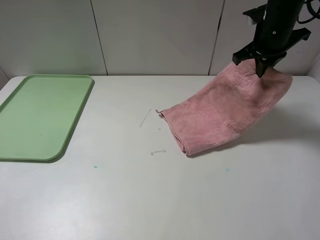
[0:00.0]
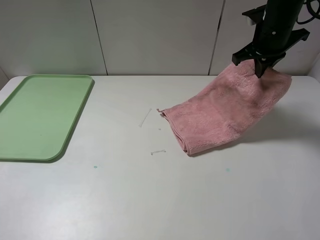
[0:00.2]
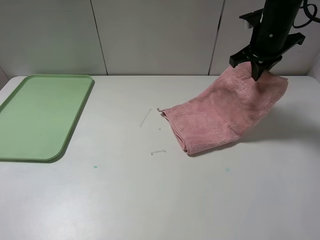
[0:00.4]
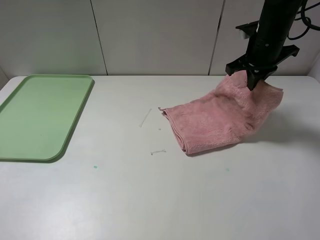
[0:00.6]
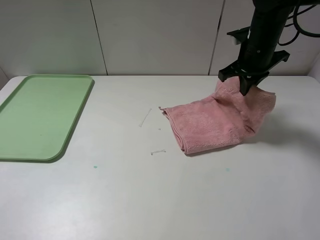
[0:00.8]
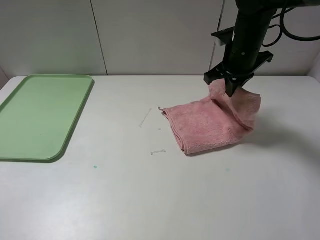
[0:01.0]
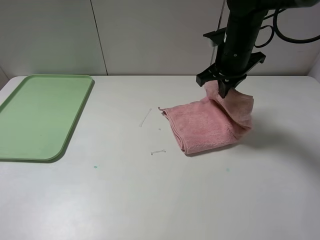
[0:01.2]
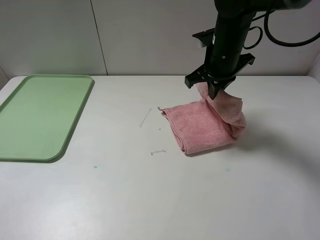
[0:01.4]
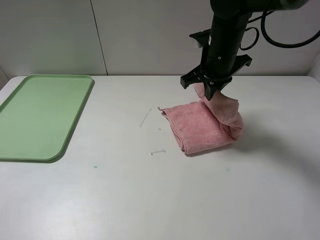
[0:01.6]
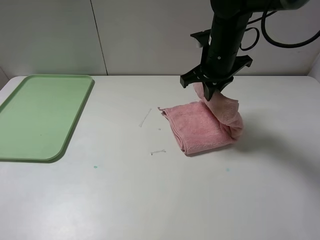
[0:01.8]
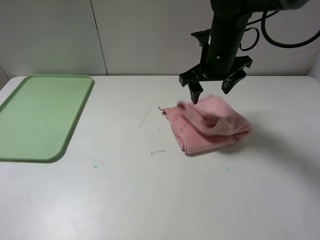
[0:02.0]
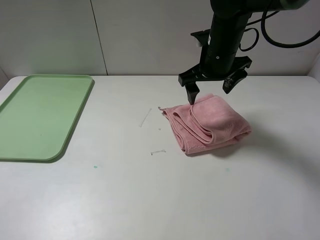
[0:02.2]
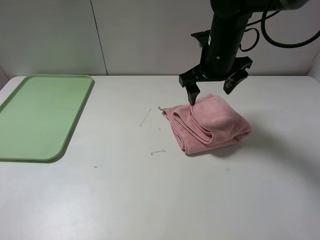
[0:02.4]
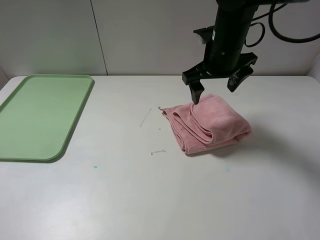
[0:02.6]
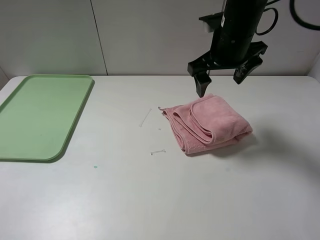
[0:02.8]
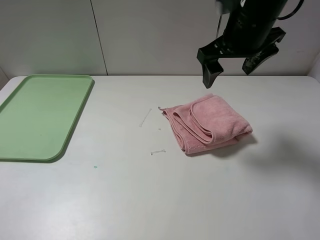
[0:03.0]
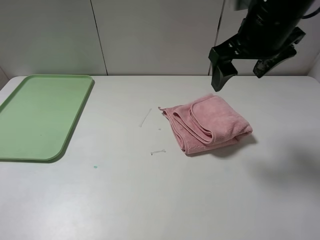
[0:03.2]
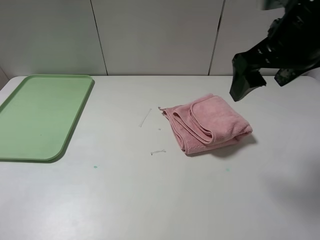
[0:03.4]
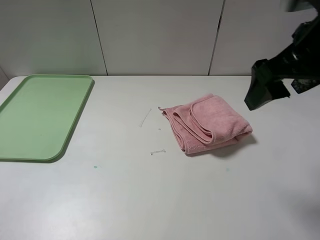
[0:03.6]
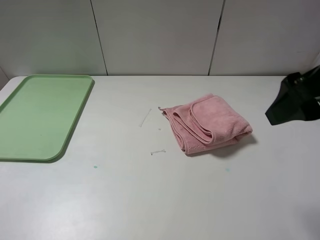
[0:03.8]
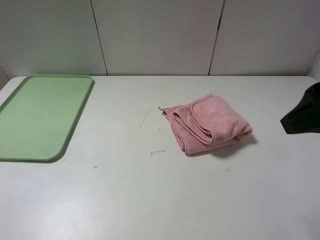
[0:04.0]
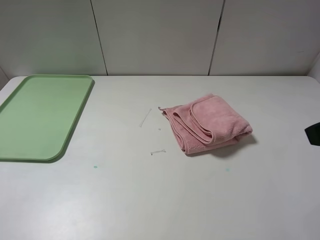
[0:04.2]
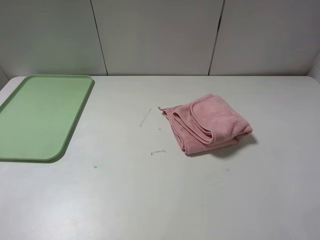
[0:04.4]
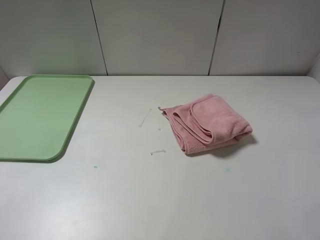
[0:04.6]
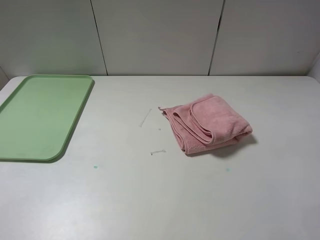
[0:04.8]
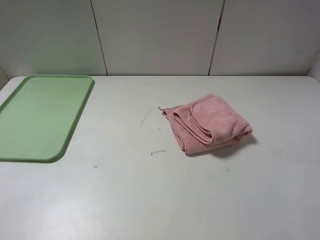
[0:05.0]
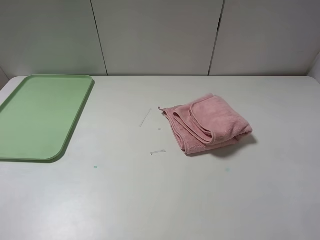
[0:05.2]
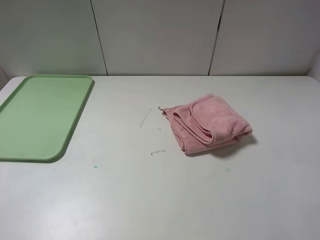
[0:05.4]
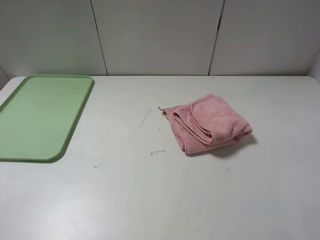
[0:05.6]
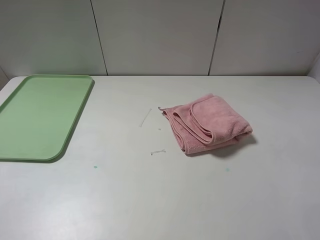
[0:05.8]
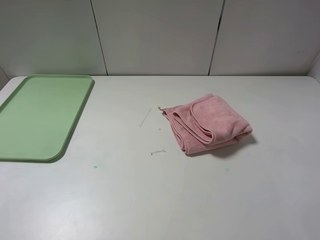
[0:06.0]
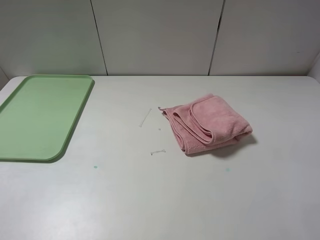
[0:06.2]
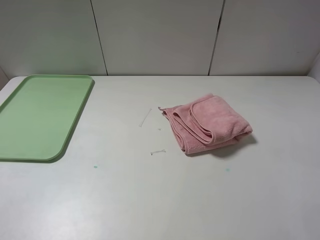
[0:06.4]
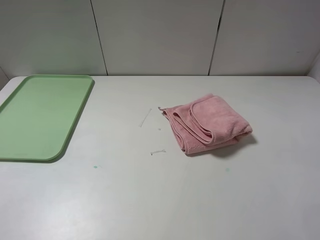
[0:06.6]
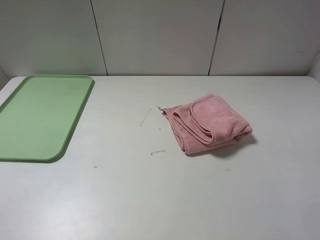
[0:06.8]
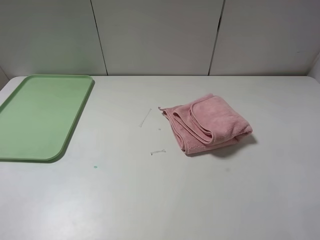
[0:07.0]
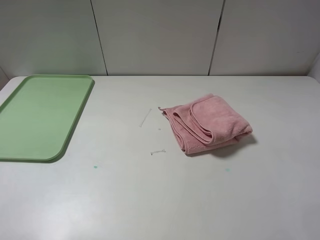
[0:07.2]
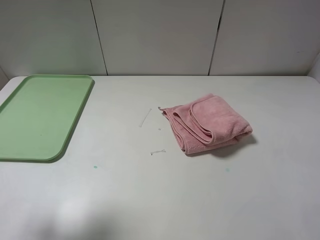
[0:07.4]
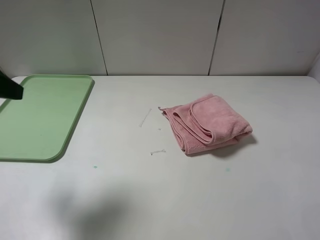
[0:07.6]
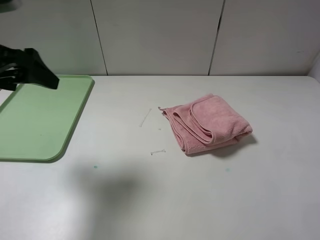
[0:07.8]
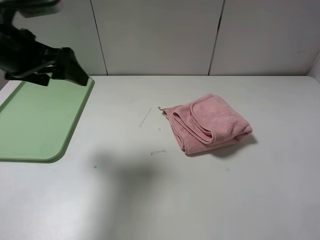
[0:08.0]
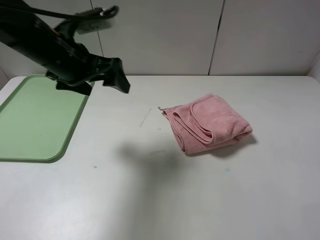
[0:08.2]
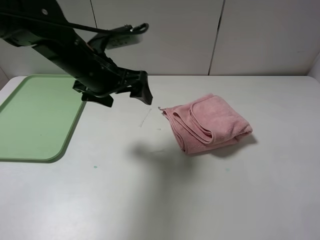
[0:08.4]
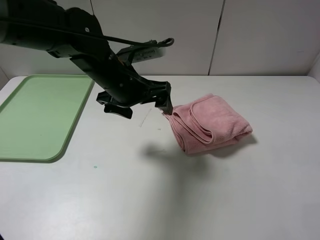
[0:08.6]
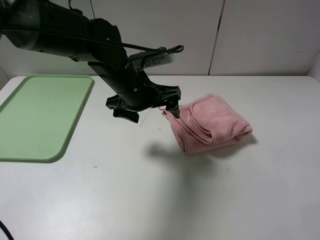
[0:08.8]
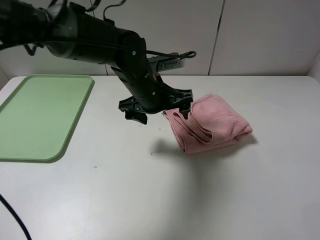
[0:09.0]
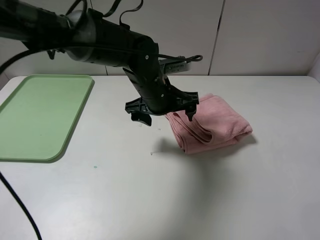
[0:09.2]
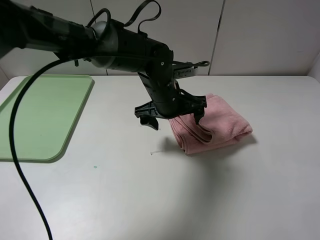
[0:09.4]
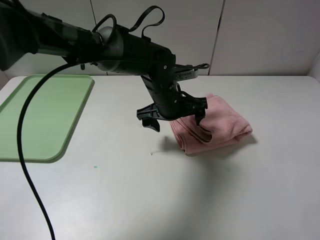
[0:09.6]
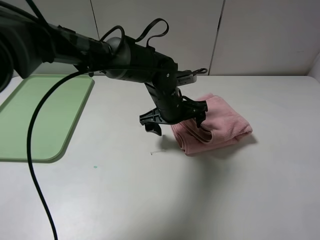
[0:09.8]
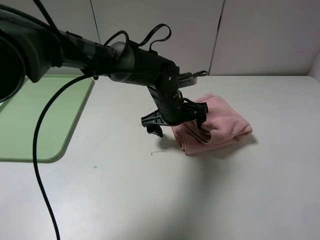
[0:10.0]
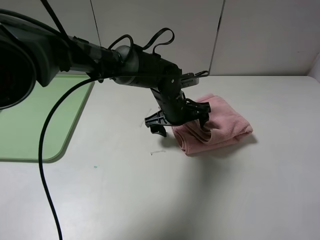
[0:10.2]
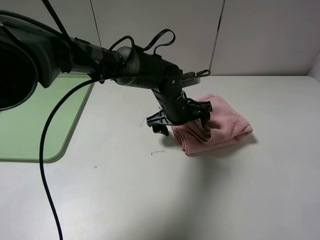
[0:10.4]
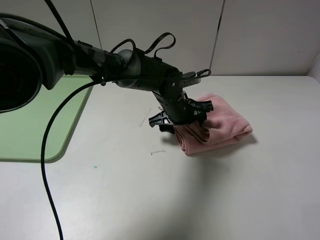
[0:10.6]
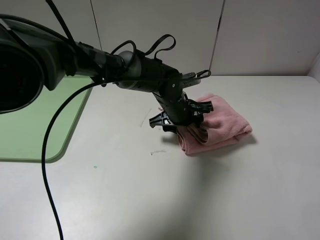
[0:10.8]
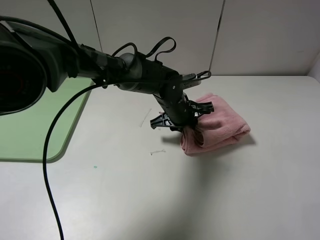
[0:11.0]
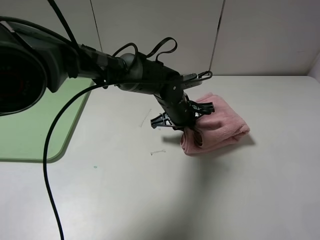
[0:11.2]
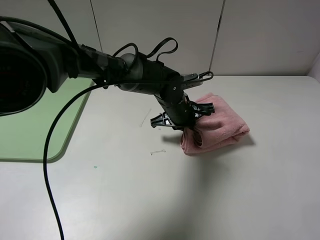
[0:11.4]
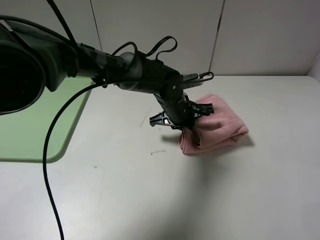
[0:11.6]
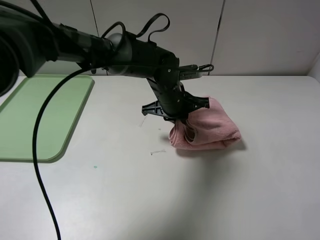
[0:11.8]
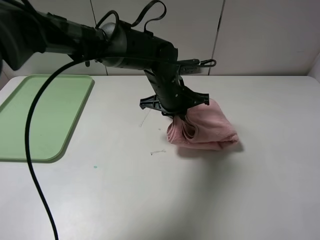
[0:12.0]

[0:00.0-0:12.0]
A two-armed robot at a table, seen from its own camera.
Step, 0:00.0 to 0:02.0: Fold the pink towel from right to left with right gripper.
0:00.0 to 0:01.6: The right gripper goes about 10 cm to the left.
0:01.6 to 0:03.0: The right gripper moves upward and backward, approximately 10 cm, and opens its fingers.
0:03.0 to 0:04.4: The right gripper travels backward and to the right by some 25 cm.
0:06.0 to 0:07.6: The left gripper heads forward, covering about 20 cm.
0:07.6 to 0:09.0: The left gripper heads to the right, downward and forward, covering some 35 cm.
0:09.0 to 0:10.4: The left gripper is displaced downward and to the right by approximately 10 cm.
0:10.4 to 0:12.0: The left gripper ends up approximately 5 cm from where it was, and closes up.

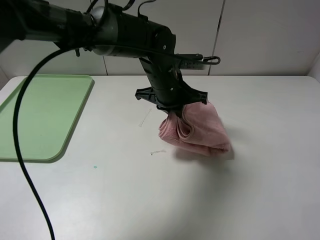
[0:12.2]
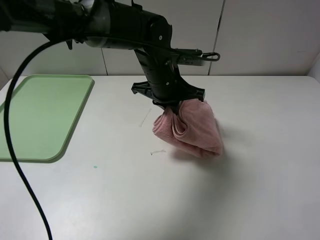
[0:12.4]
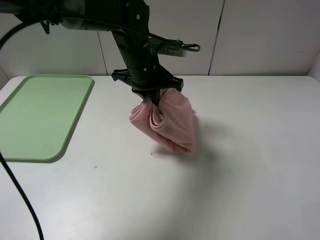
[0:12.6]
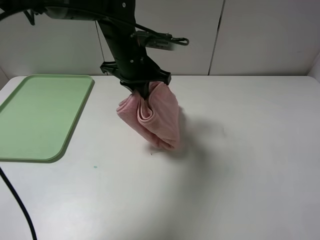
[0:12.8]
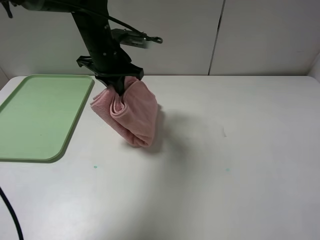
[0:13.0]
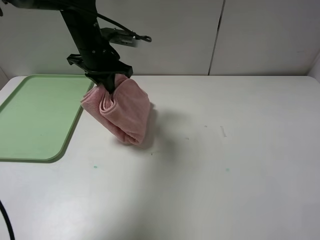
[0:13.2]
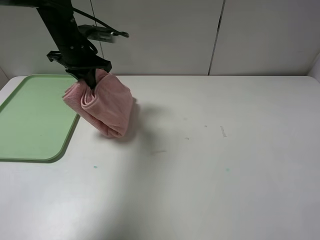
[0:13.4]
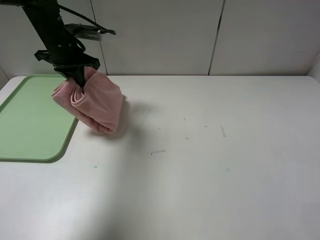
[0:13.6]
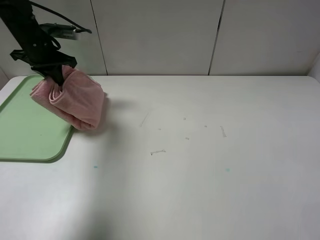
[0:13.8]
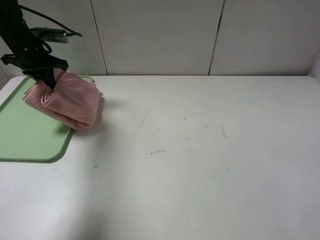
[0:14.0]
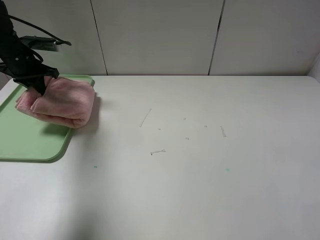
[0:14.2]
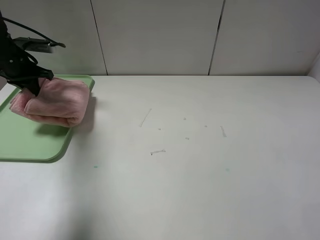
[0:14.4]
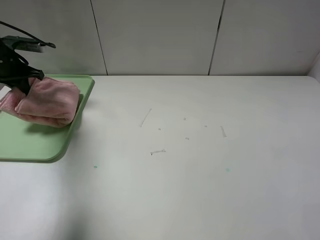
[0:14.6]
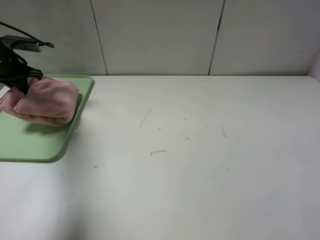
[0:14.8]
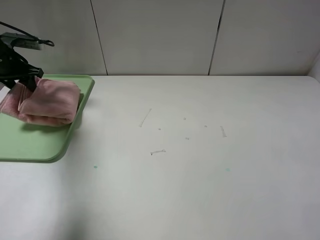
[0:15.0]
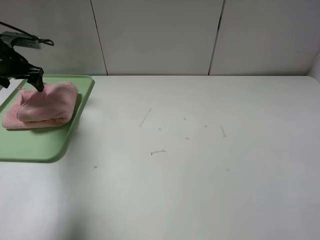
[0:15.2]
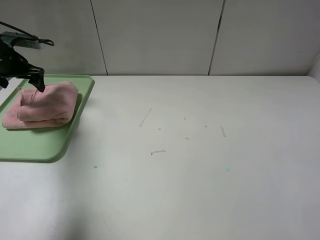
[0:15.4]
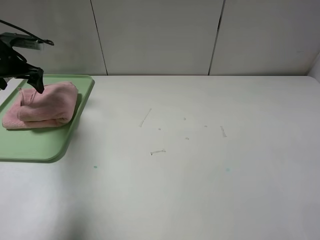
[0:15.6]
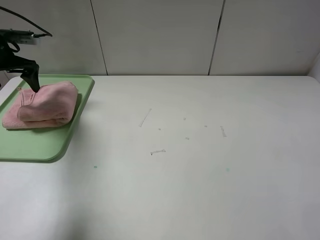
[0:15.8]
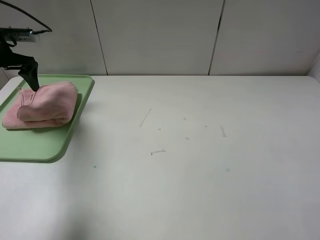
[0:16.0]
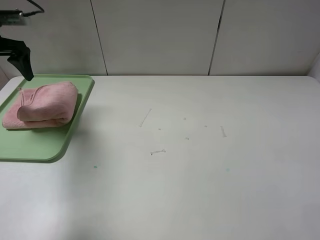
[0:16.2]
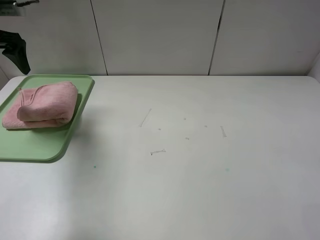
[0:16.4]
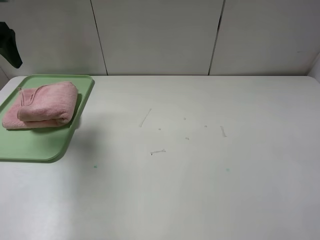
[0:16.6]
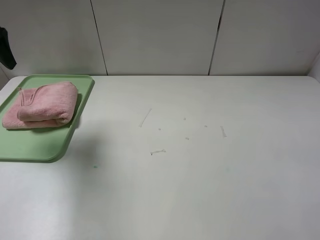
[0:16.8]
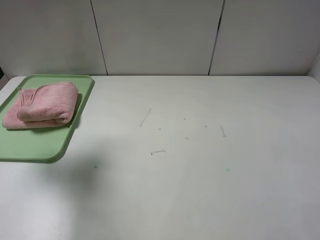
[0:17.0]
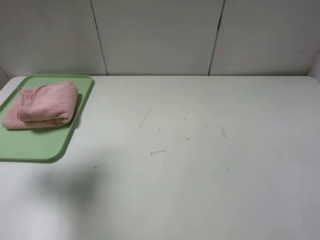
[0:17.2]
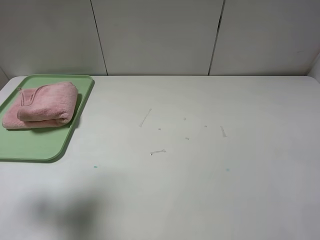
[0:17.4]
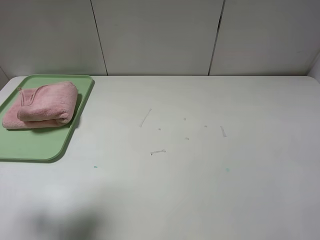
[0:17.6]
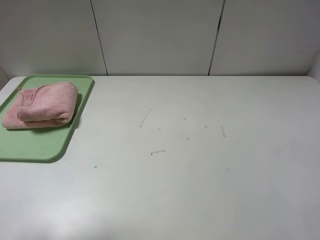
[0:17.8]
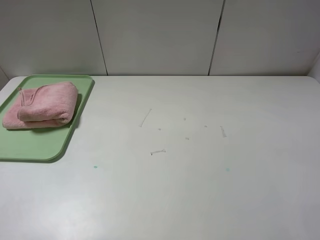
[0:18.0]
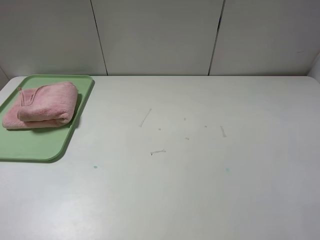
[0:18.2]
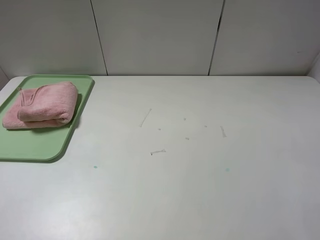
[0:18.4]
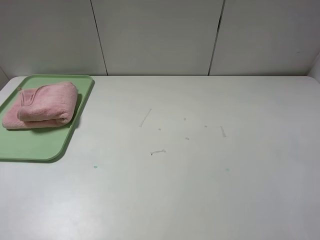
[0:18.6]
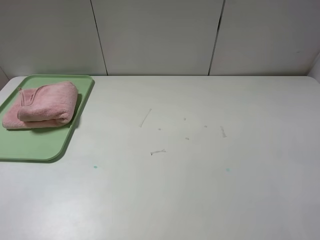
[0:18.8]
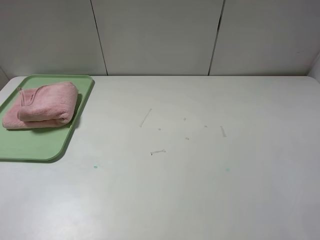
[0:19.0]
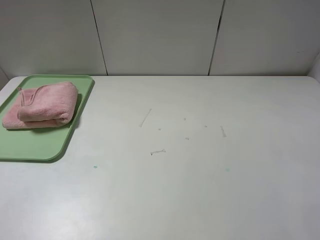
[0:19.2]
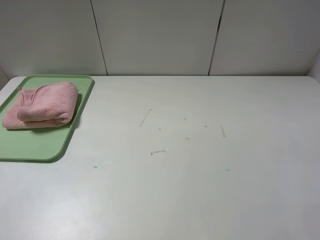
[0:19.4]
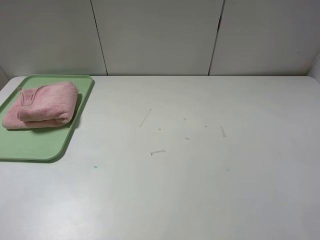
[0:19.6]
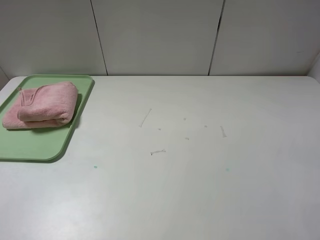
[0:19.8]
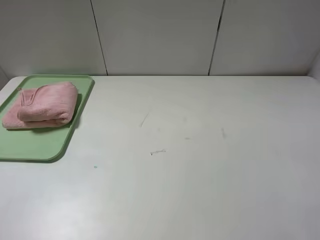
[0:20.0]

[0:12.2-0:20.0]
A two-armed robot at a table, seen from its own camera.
Step, 0:12.2 to 0:15.0: Place the folded pink towel on the tray with the left gripper.
0:12.2 to 0:13.8: The left gripper is displaced to the left by about 30 cm.
0:13.8 to 0:15.4: The left gripper shifts some 10 cm to the left, and opens up.
0:15.4 to 0:16.8: The left gripper goes approximately 20 cm upward and backward.
0:16.8 to 0:18.4: The left gripper heads backward, covering approximately 30 cm.
